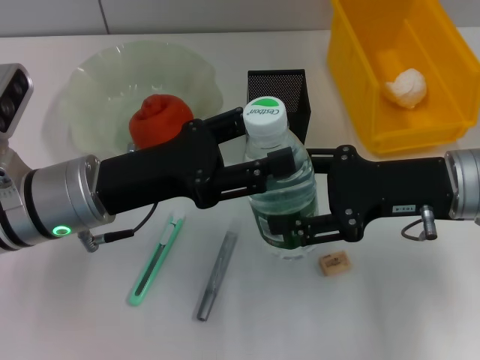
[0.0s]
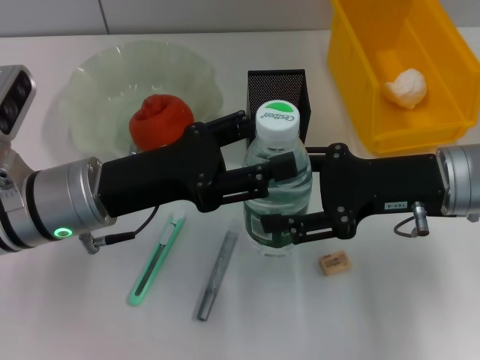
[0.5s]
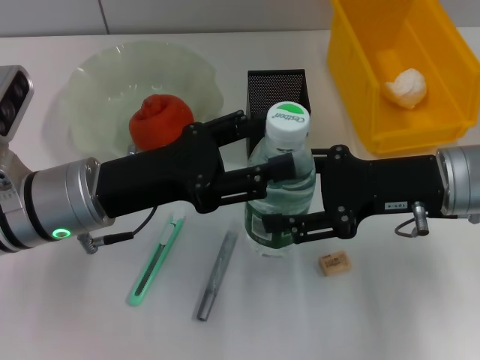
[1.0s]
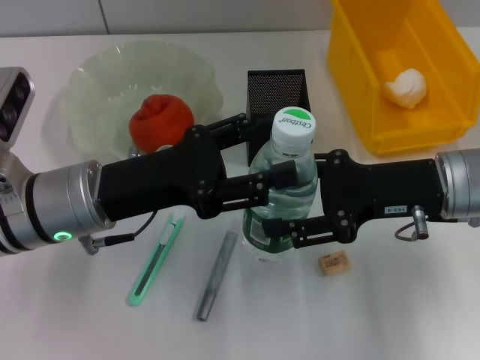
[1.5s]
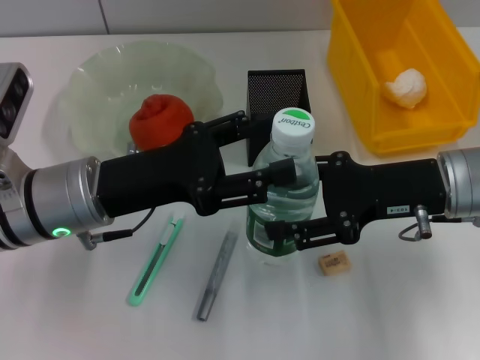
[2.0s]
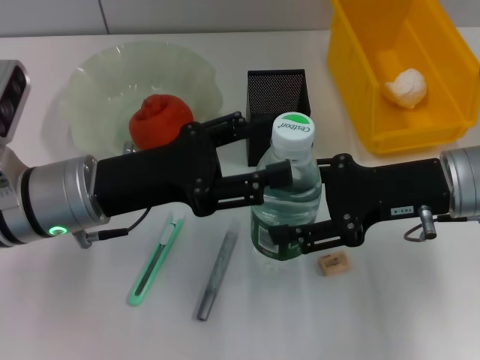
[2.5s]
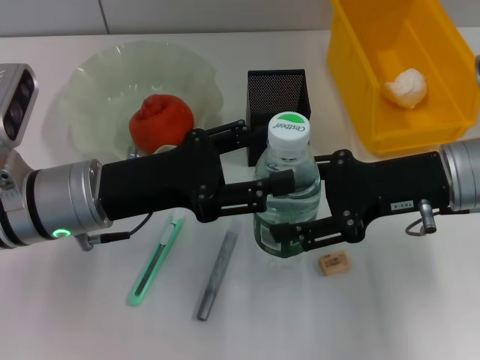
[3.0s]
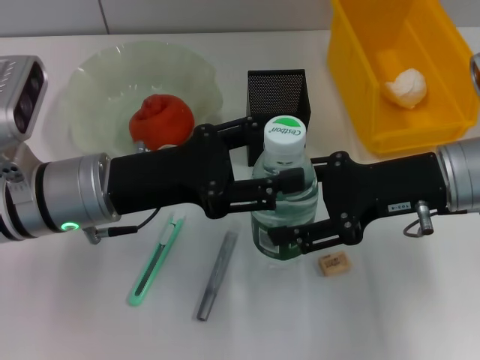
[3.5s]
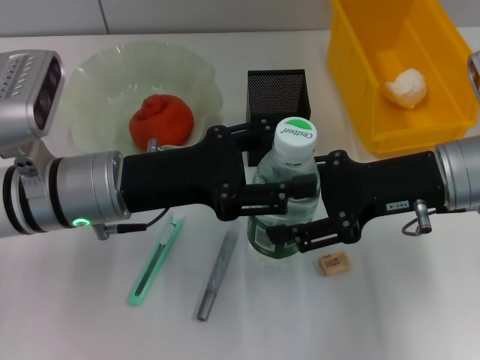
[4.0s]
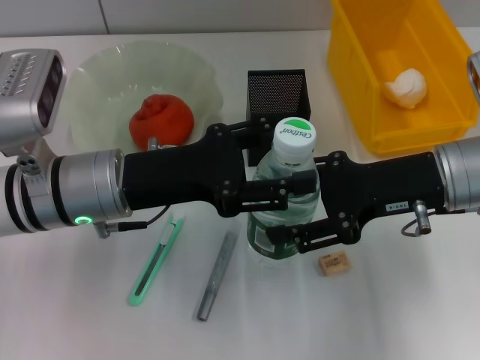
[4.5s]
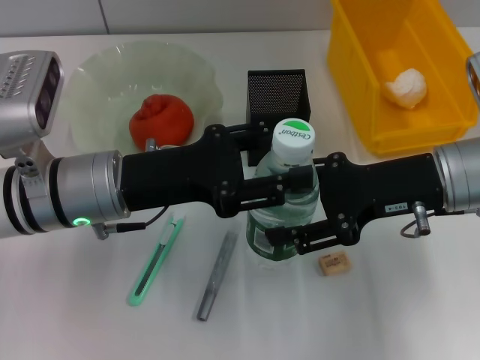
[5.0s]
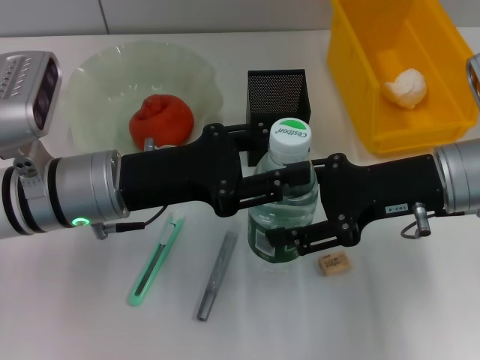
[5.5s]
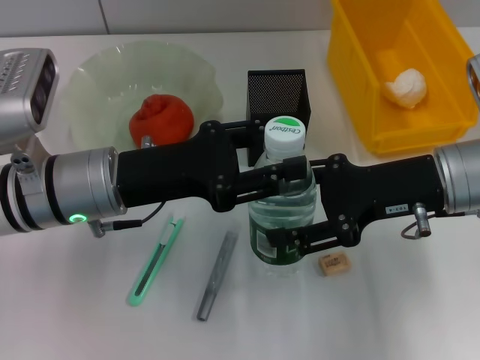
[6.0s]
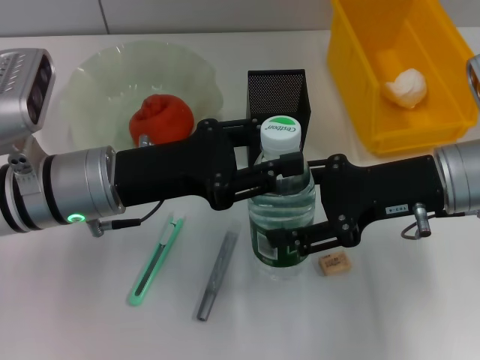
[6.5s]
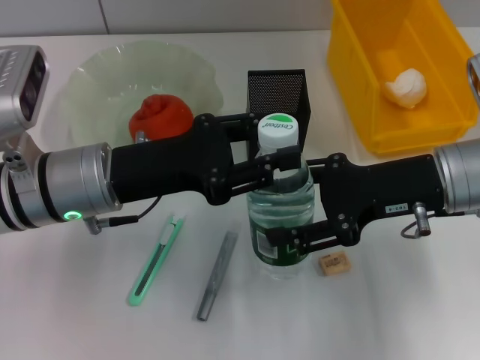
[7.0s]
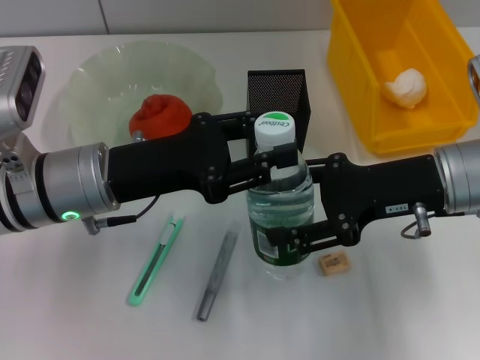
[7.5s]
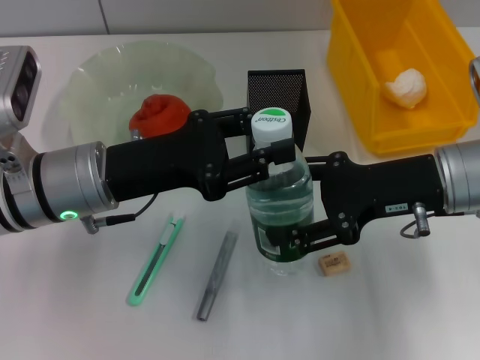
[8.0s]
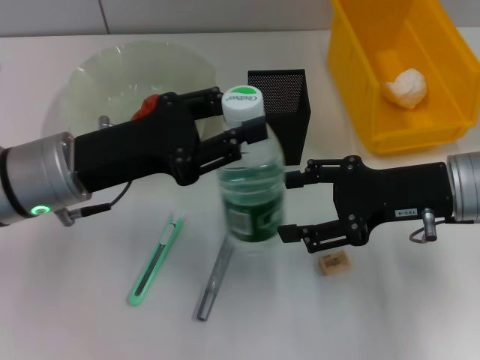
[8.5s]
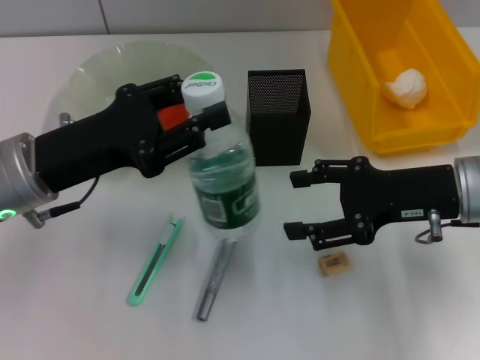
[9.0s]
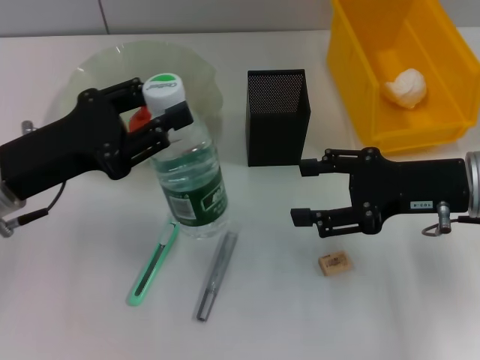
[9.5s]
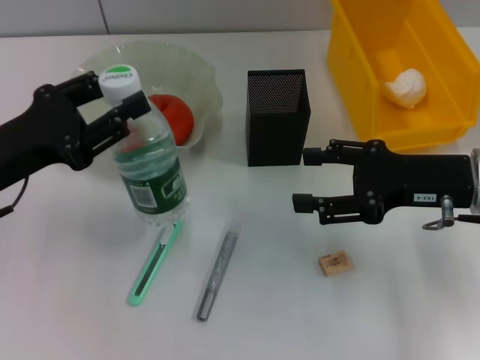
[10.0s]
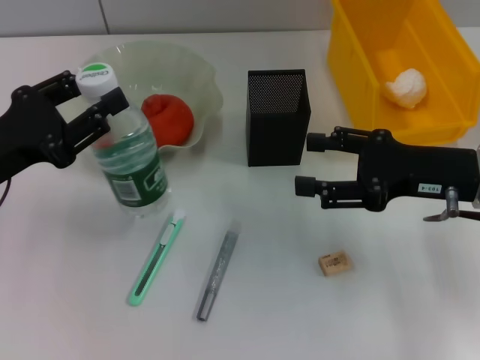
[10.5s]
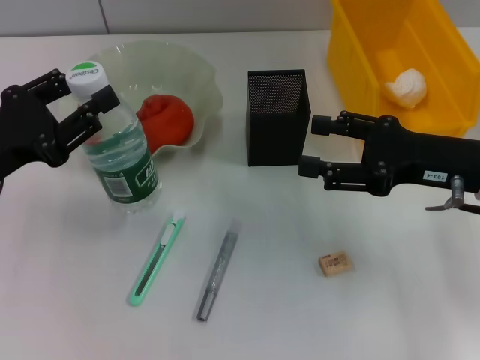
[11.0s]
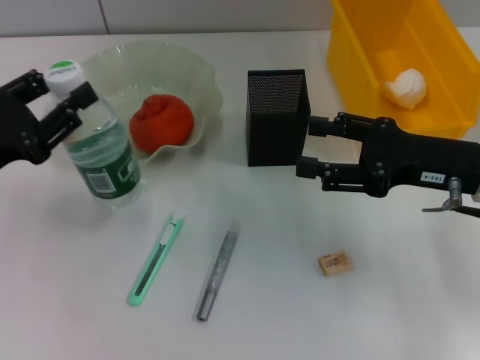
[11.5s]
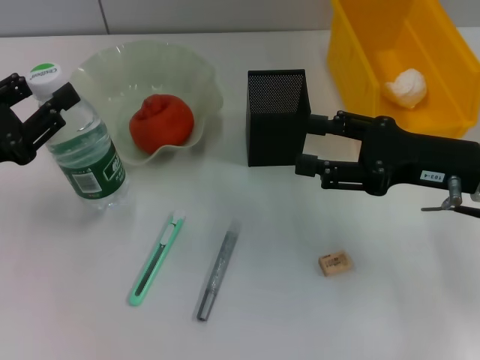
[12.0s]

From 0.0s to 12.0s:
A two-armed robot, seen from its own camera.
Step, from 0.0s to 8.0s: Pass the water bottle from the right hand to the left hand.
From 0.0s to 2.0s: The two grippers keep their place.
From 2.0s to 4.0s: The grippers move only a little.
From 4.0s to 8.0s: Both grippers stay put.
From 8.0s to 10.0s: The left gripper shifts roughly 10 cm to the left.
From 10.0s to 12.0s: The grippers move only a little.

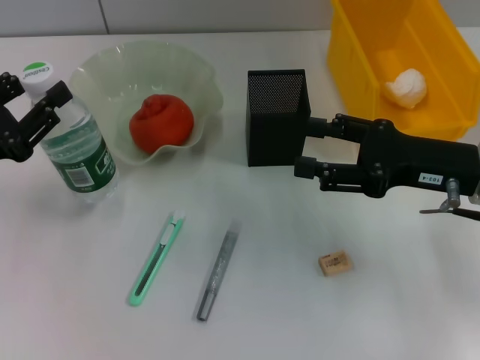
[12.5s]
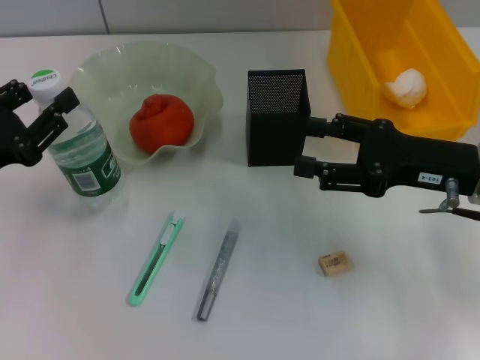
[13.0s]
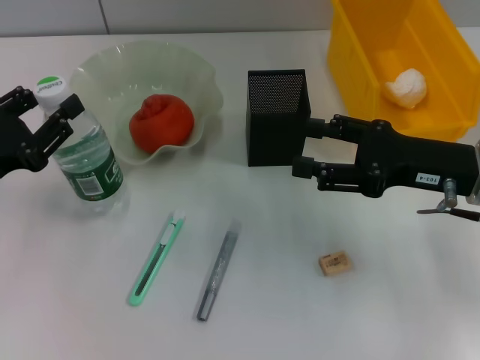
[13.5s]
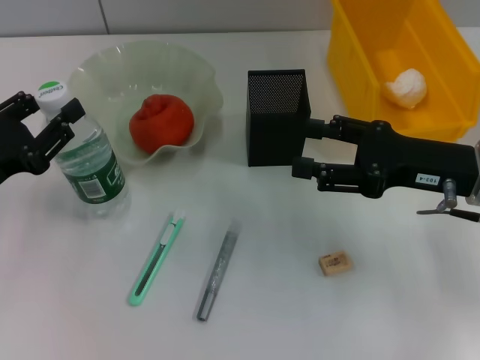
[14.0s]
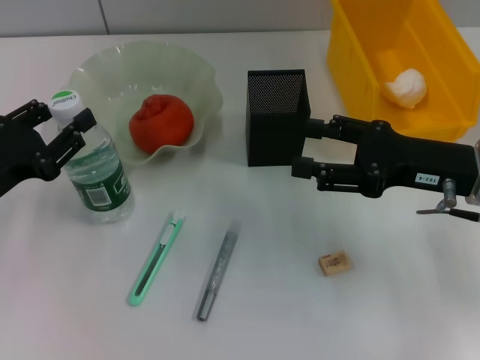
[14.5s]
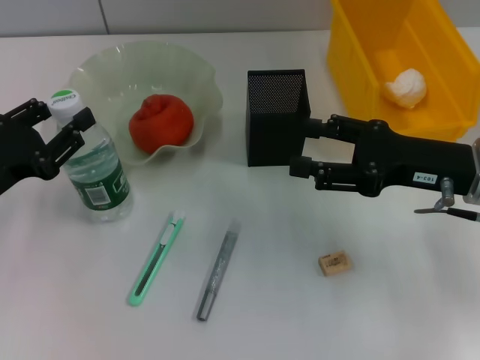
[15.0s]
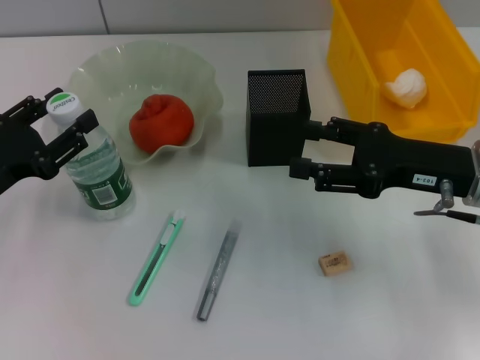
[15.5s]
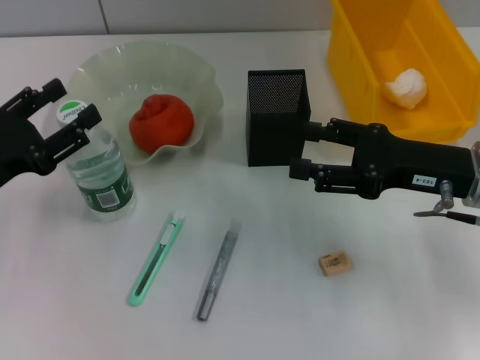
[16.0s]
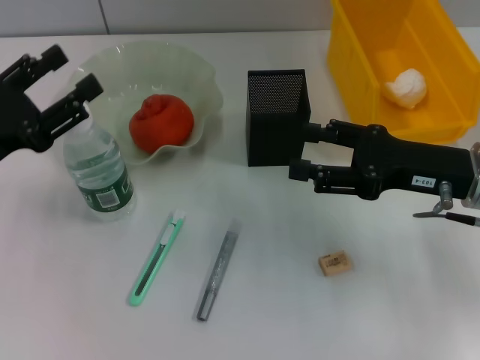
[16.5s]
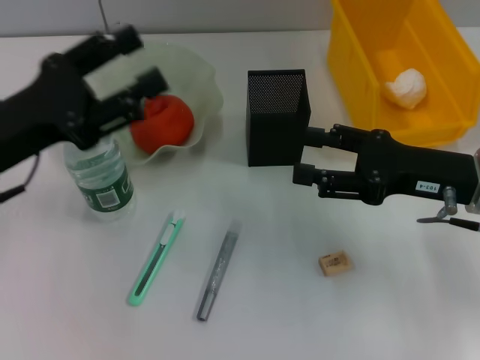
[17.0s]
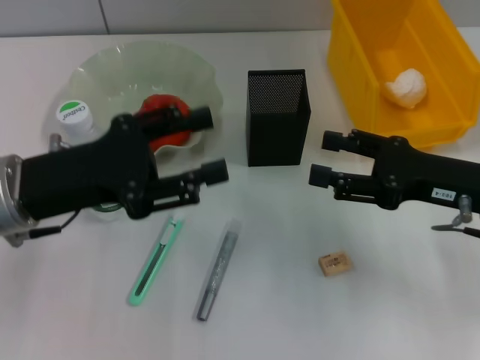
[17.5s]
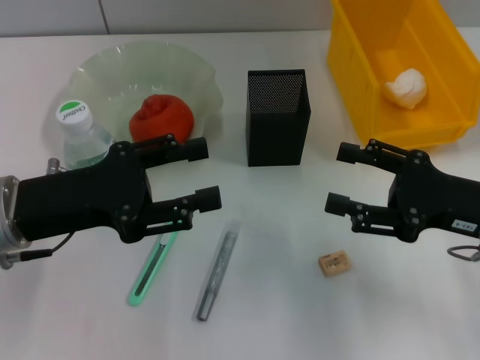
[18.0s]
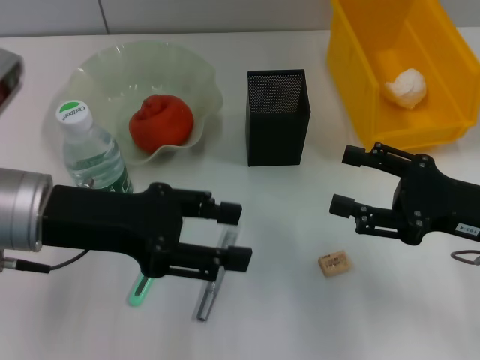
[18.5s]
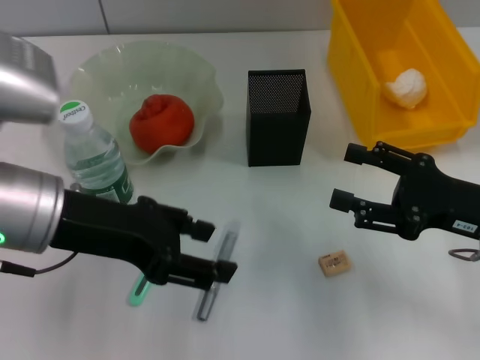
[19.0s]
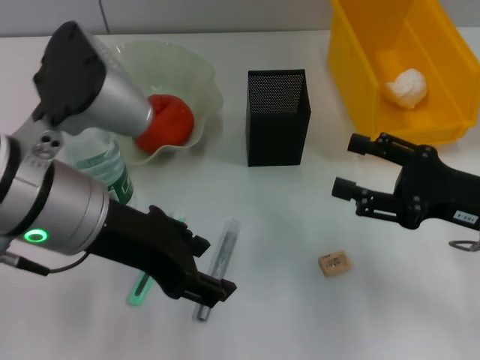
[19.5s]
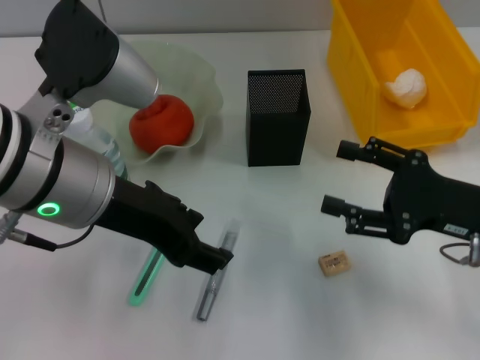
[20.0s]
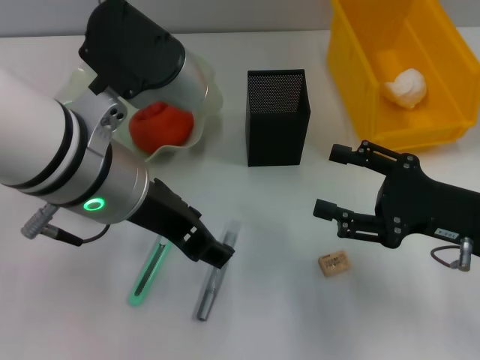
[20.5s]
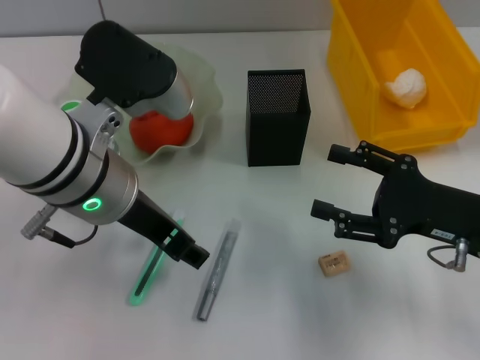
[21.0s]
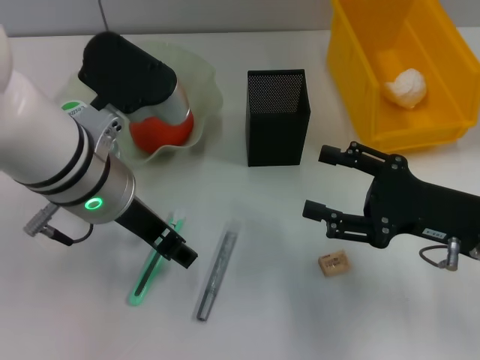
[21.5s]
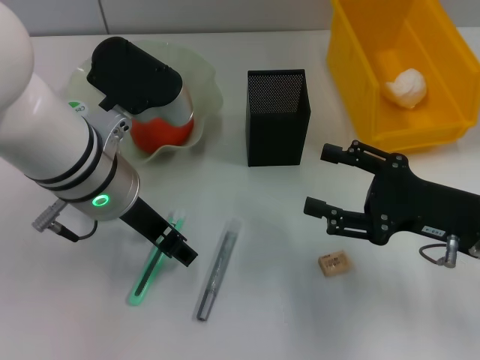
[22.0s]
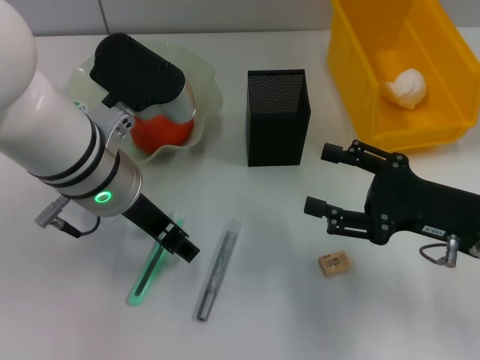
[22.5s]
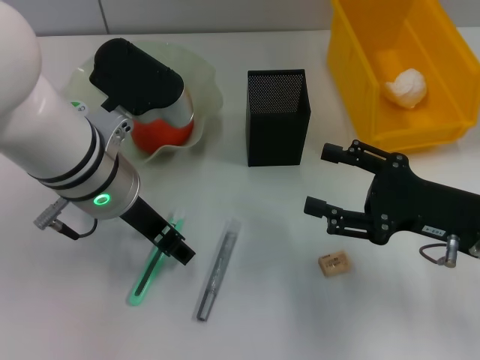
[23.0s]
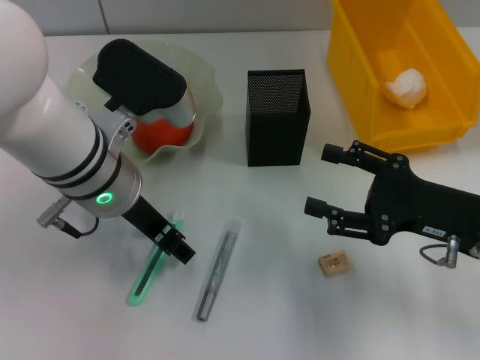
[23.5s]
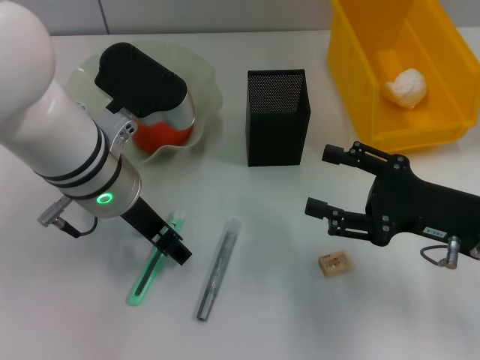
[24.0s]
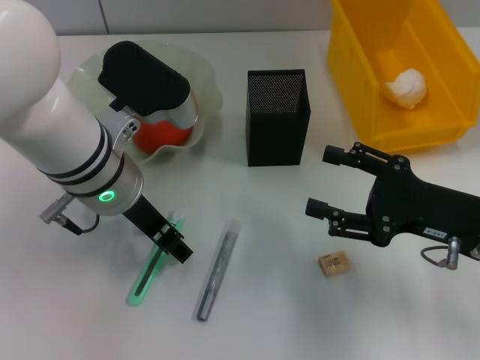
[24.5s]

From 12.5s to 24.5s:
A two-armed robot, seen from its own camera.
Step, from 12.5s to 16.0s: Place the water bottle on the table with the left hand.
From 12.5s to 16.5s: The grippers move only a little.
From 16.5s to 18.5s: The left gripper goes roughly 10 cm to the right. Meanwhile the right gripper shifts by some 5 cm.
From 18.5s to 20.5s: The left gripper shifts roughly 10 cm to the right and upward.
From 20.5s to 22.5s: The left gripper shifts approximately 5 cm downward.
From 22.5s to 24.5s: The grippers make only small movements.

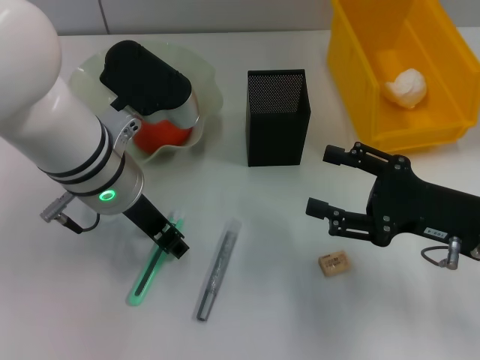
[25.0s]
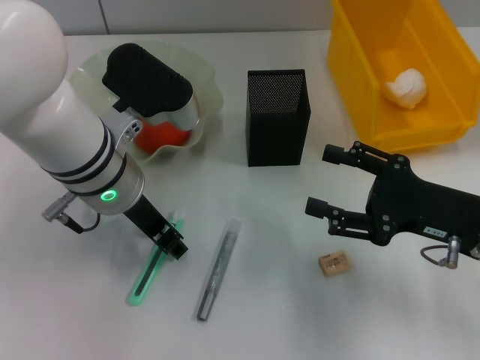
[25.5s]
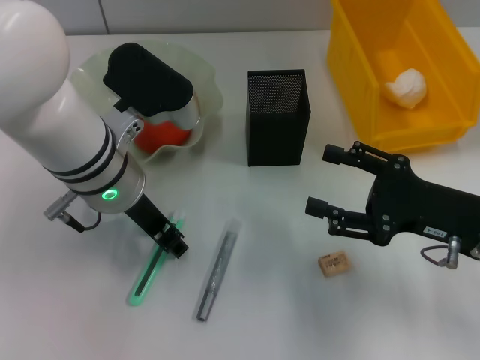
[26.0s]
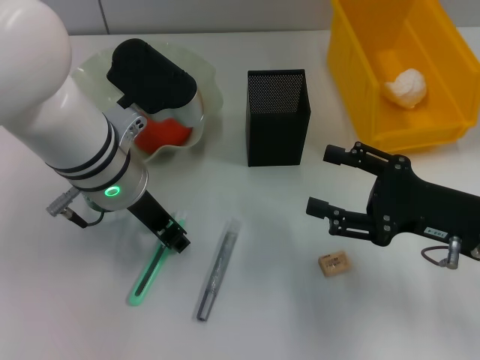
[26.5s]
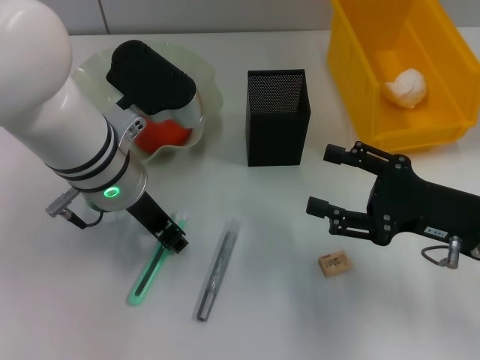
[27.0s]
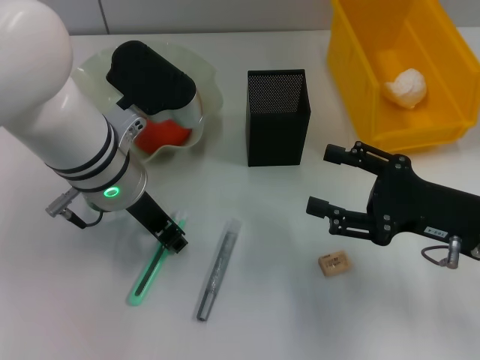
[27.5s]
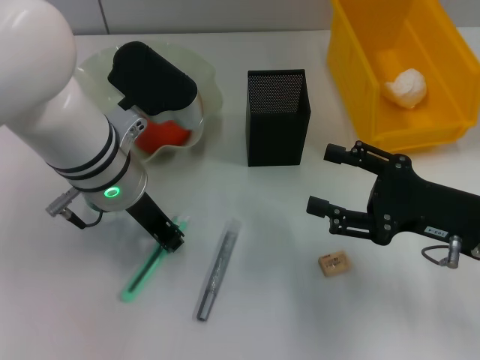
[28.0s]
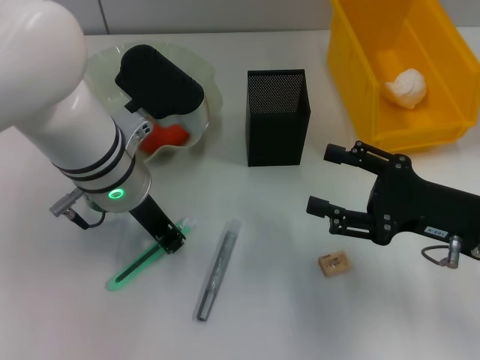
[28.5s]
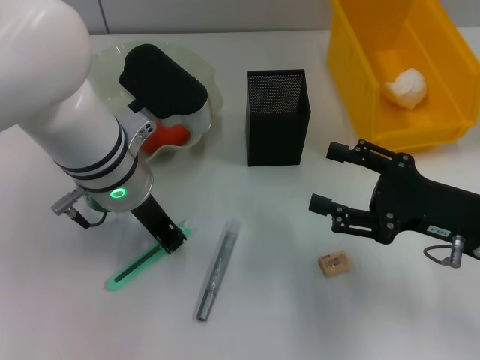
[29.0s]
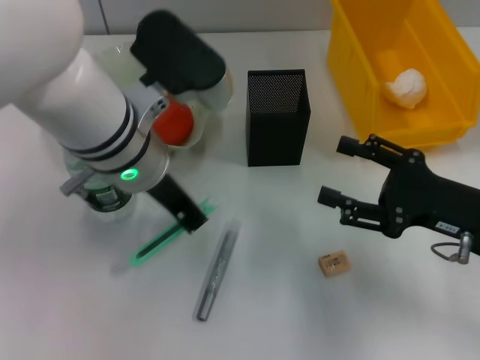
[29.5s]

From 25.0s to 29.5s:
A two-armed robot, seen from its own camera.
Step, from 25.0s to 29.0s: Grab the blue utility knife with the left hand.
From 25.0s to 27.0s: Neither gripper changes place.
